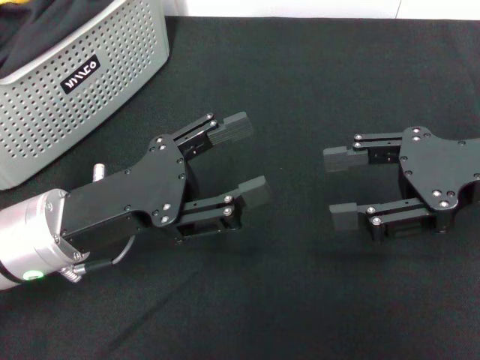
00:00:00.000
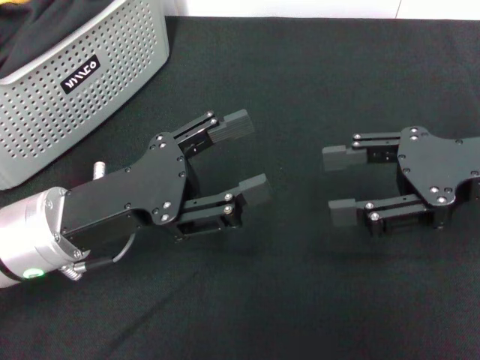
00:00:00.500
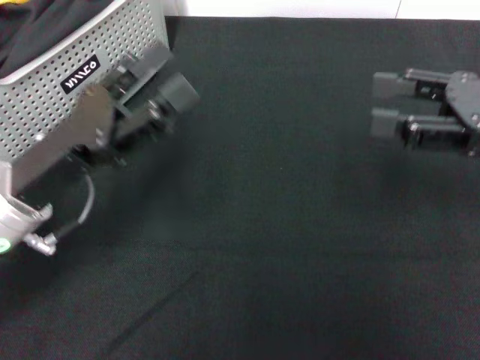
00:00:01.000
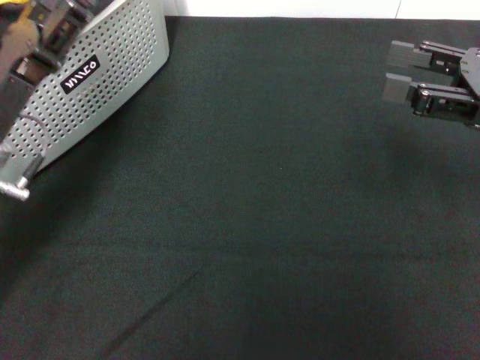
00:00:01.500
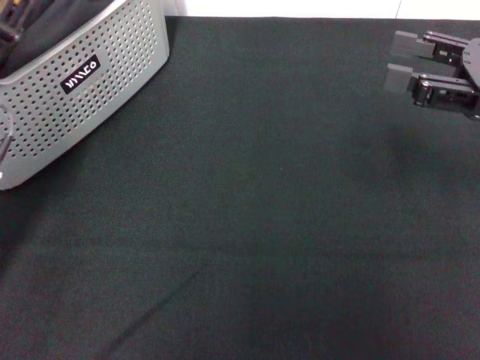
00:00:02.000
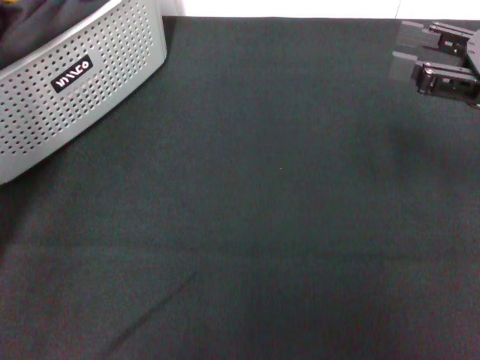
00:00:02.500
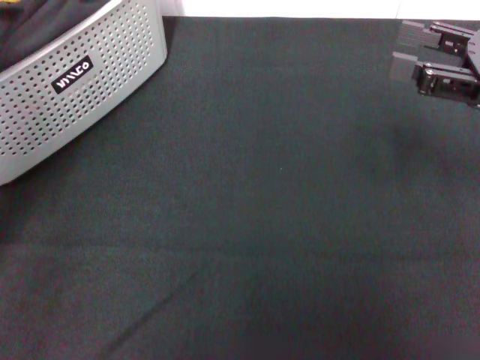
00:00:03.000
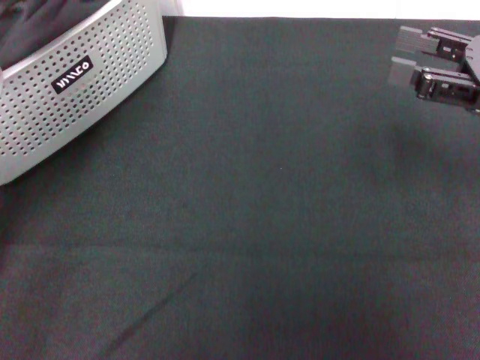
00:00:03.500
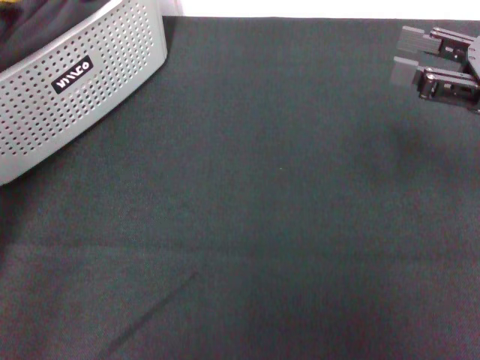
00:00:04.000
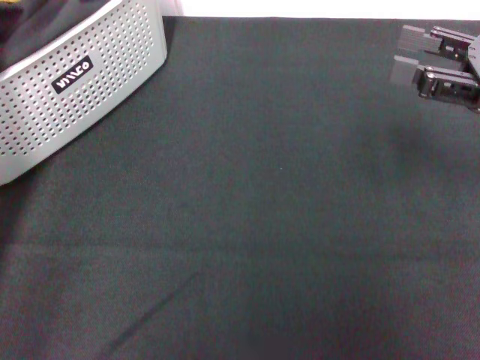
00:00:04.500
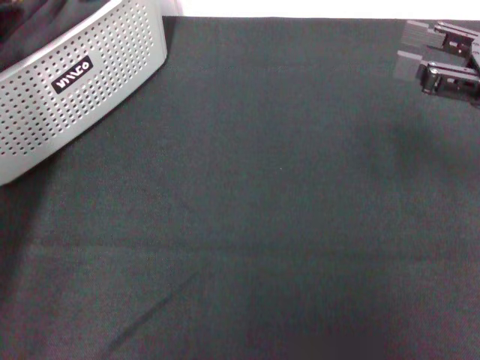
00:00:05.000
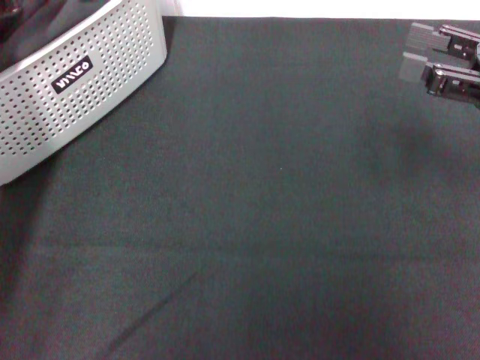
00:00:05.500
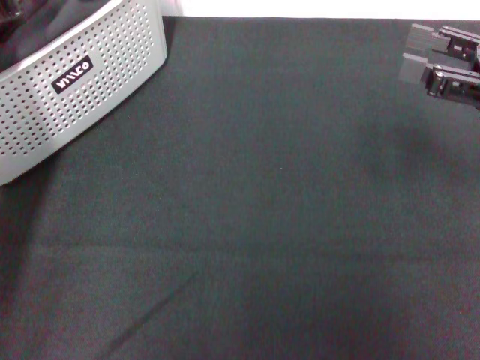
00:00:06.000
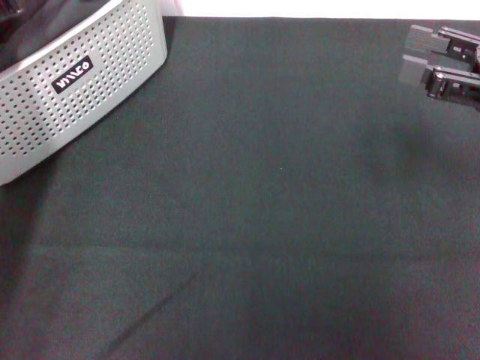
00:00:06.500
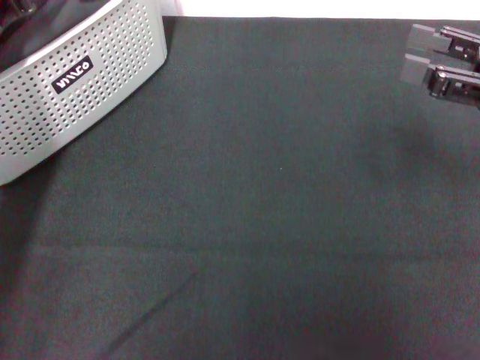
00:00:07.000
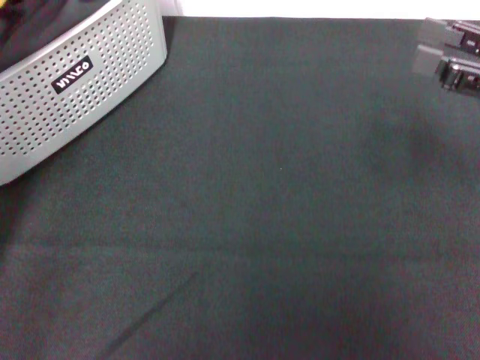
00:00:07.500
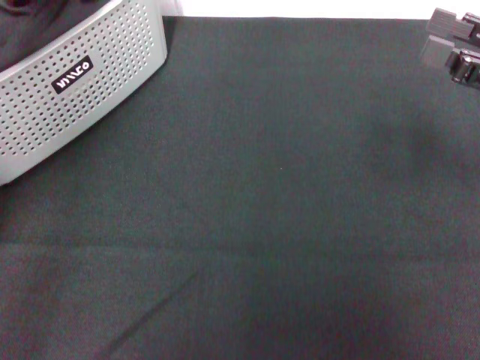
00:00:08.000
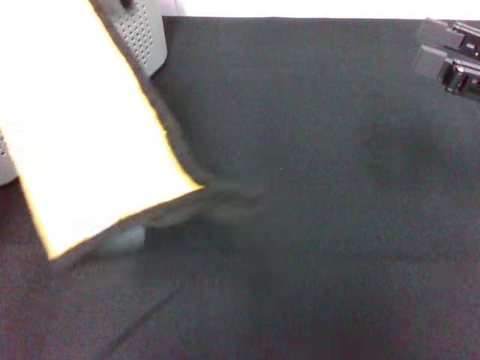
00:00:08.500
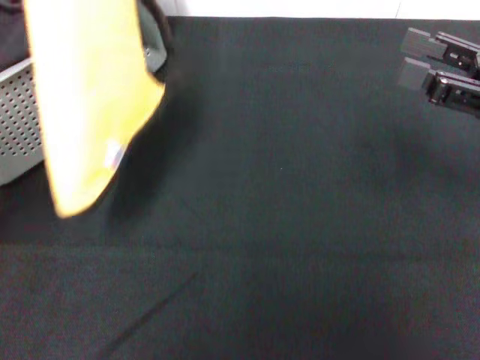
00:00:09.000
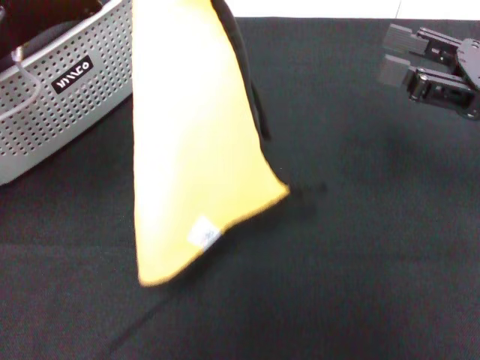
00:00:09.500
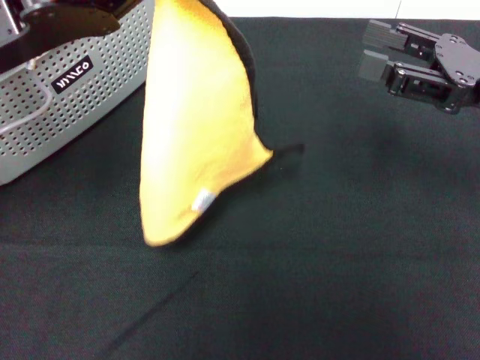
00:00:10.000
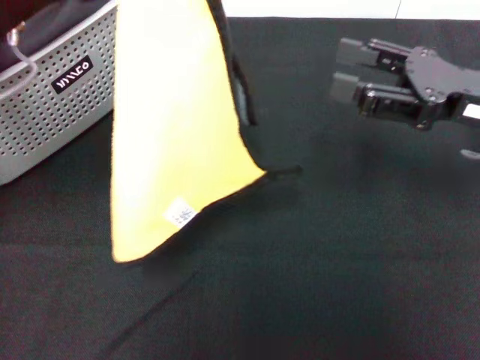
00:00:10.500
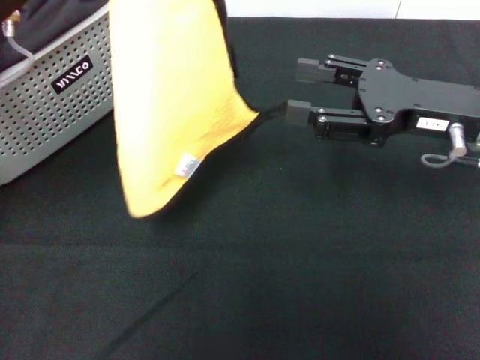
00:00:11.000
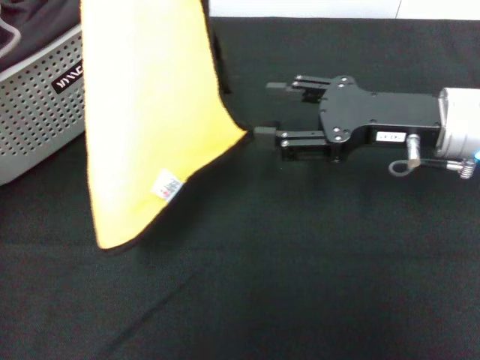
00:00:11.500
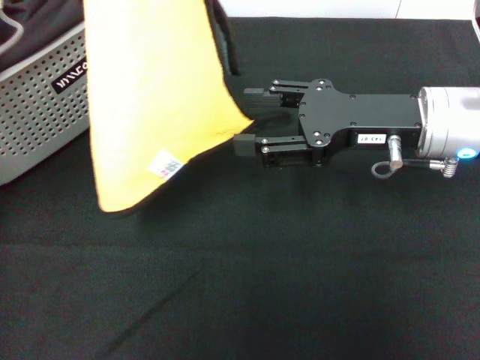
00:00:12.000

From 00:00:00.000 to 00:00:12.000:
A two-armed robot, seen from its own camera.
Task of the whole recording: pick up the towel from the storage box and lay it flat on the black tablecloth.
Step, from 00:00:00.000 to 00:00:07.000: Pick up a towel with the left gripper.
From 00:00:00.000 to 00:00:02.000: The left gripper travels to the left and forward by approximately 10 cm, while the right gripper shifts by some 5 cm.
From 00:00:02.000 to 00:00:04.000: The left gripper goes about 10 cm upward.
From 00:00:06.000 to 00:00:08.000: The left gripper moves upward, about 5 cm, and closes its fingers.
From 00:00:10.000 to 00:00:12.000: The right gripper shifts some 10 cm to the left.

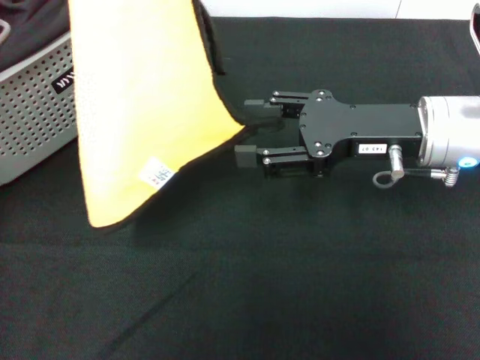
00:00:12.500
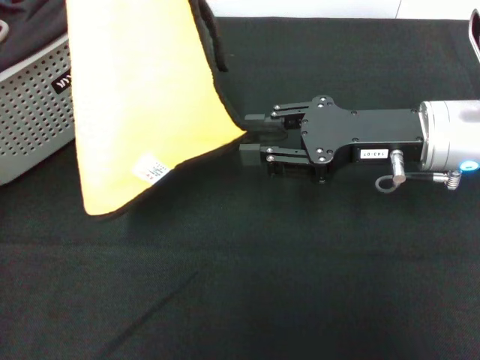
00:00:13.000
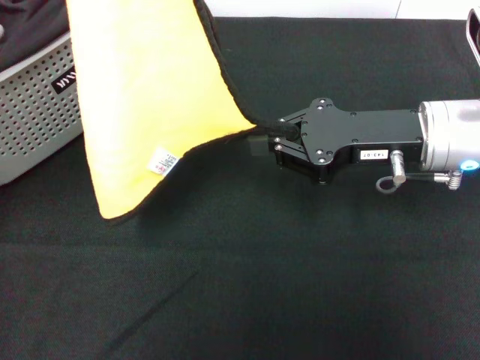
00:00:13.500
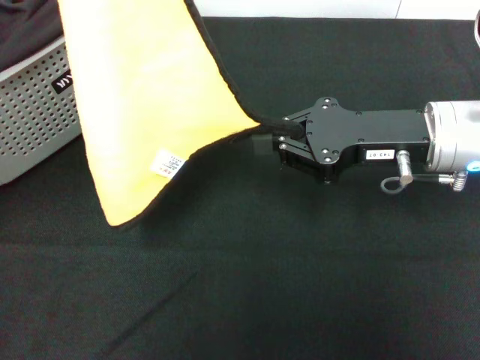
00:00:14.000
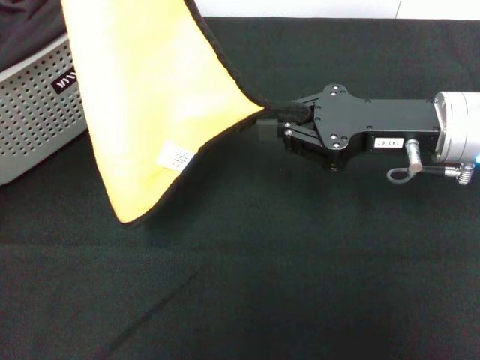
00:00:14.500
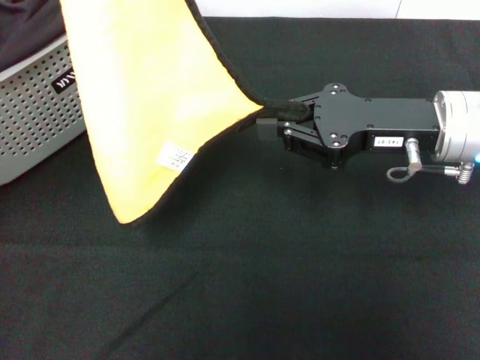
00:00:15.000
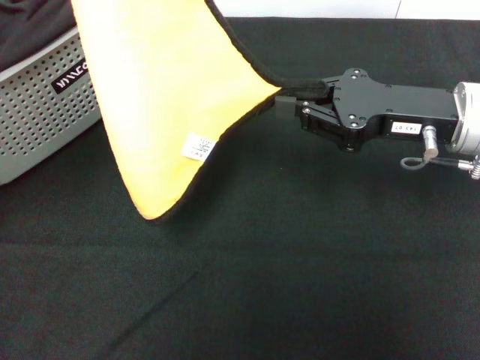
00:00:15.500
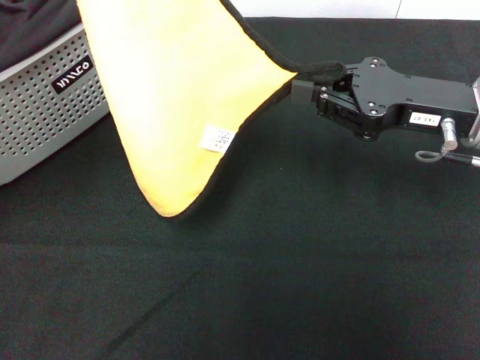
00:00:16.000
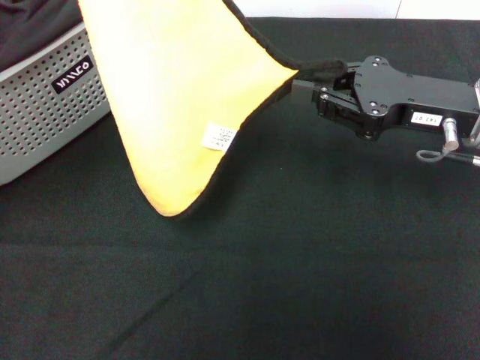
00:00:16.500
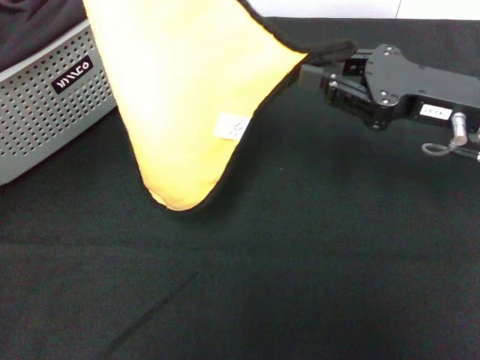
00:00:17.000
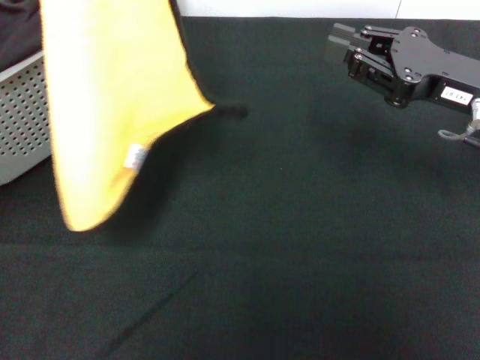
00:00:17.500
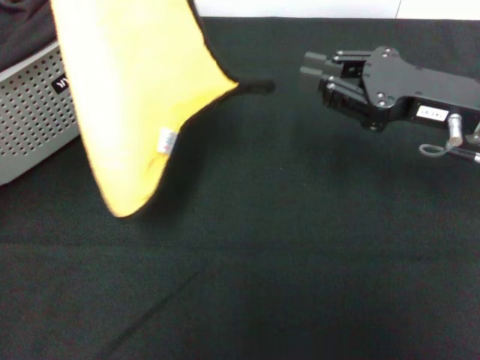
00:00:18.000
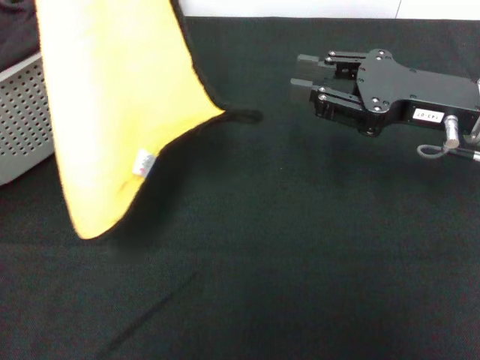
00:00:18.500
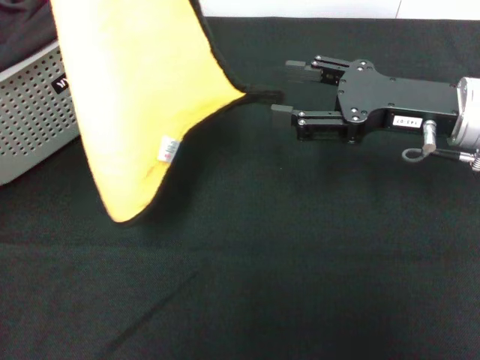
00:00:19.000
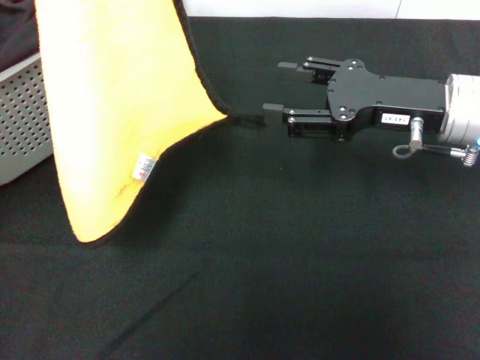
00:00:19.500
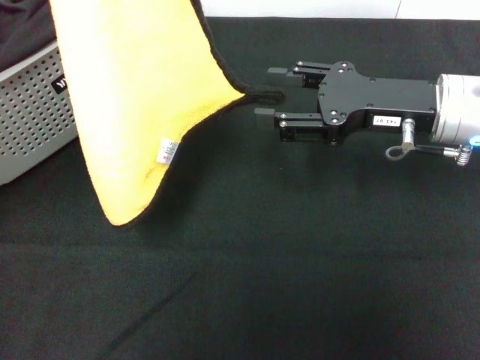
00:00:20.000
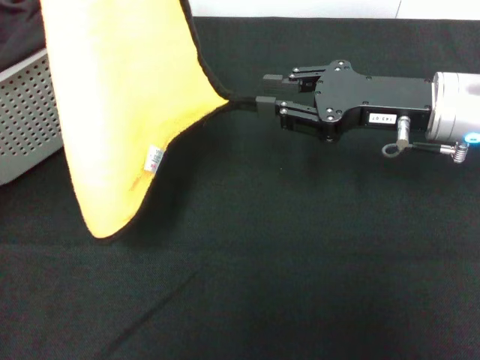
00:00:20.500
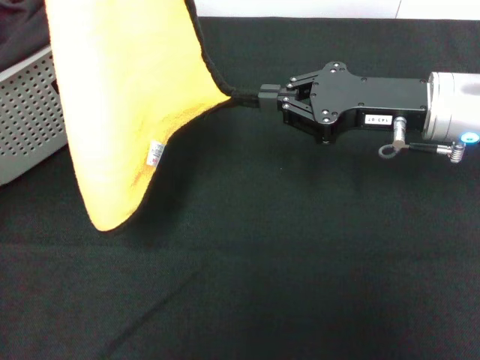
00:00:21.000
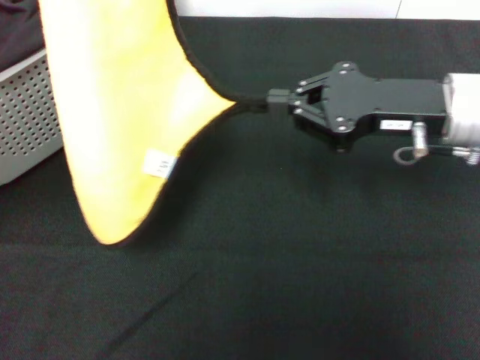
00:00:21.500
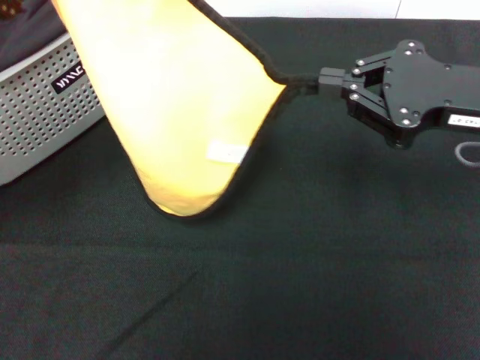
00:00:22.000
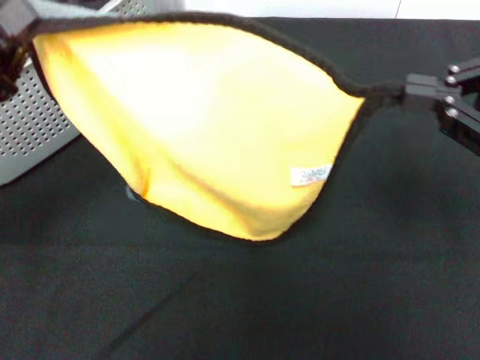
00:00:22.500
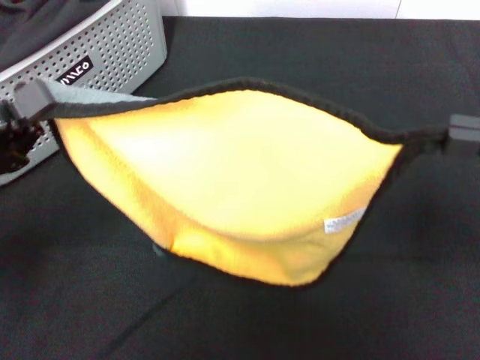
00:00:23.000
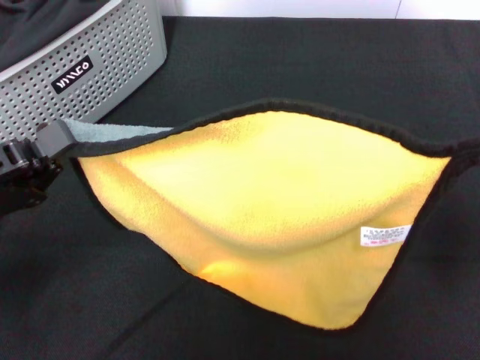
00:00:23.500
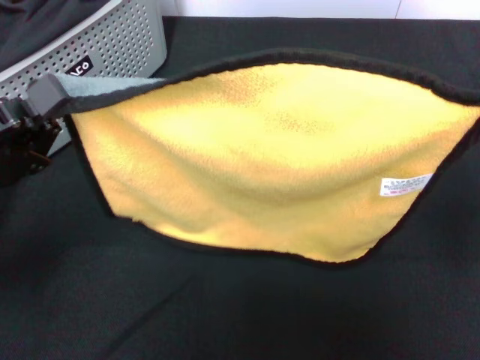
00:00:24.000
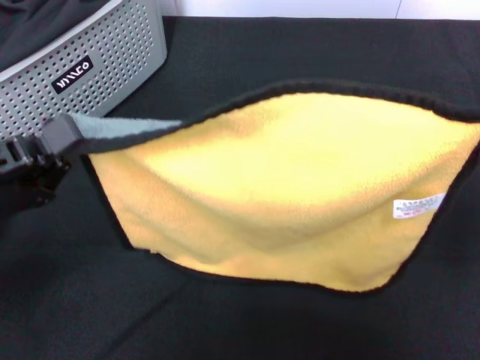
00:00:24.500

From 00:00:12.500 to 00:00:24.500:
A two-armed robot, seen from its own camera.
Task of the whole recording: pick up the towel from the storage box and lay it flat on the black tablecloth.
From 00:00:12.500 to 00:00:14.500: The right gripper closes its fingers.
From 00:00:14.500 to 00:00:16.500: There are only small adjustments of the grippers.
From 00:00:18.500 to 00:00:20.500: The right gripper opens, then closes again.
From 00:00:20.500 to 00:00:22.500: The right gripper shifts some 15 cm backward, to the right and upward, and closes up. Meanwhile the left gripper shifts some 10 cm downward and backward.
From 00:00:22.500 to 00:00:24.500: The grippers both shift backward by about 5 cm.

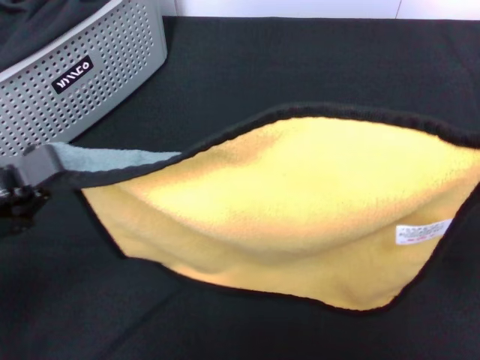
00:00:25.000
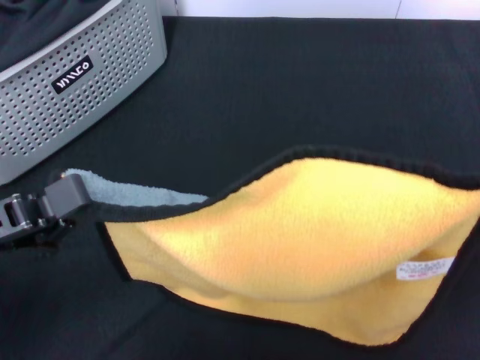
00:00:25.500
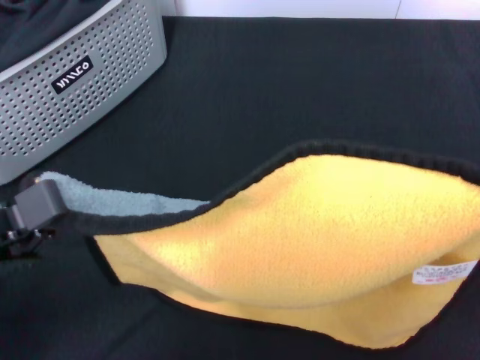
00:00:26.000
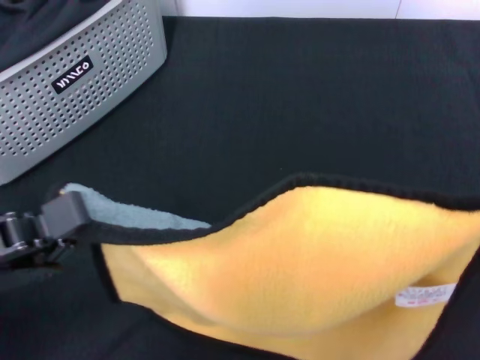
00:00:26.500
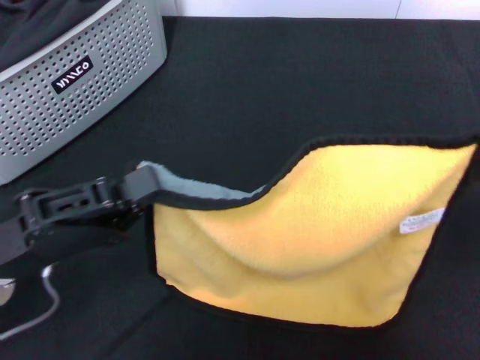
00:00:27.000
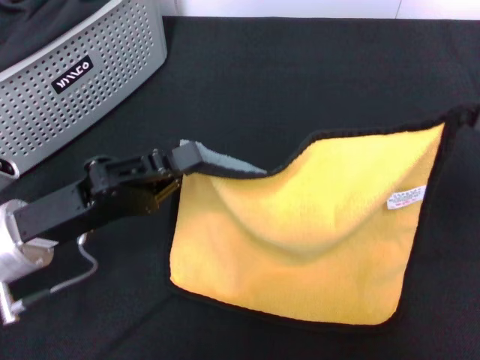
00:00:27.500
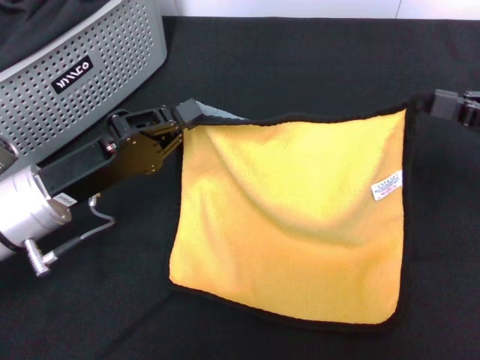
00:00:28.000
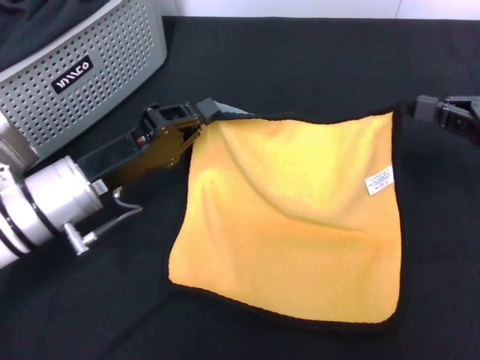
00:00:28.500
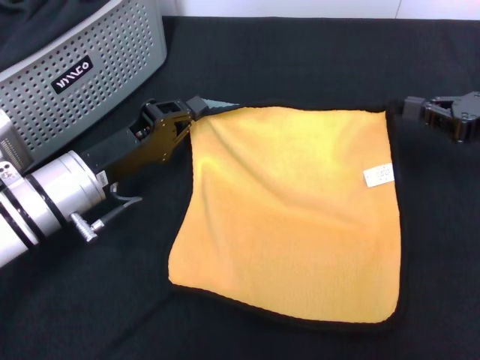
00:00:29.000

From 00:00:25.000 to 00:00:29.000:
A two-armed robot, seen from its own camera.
Task of the whole recording: pick up the towel from the storage box and lay it flat on the black tablecloth.
From 00:00:25.000 to 00:00:27.000: The right gripper is displaced downward and forward by some 10 cm; the left gripper shifts by about 5 cm.
From 00:00:27.000 to 00:00:29.000: The left gripper travels forward by some 10 cm; the right gripper goes some 15 cm forward and downward.
